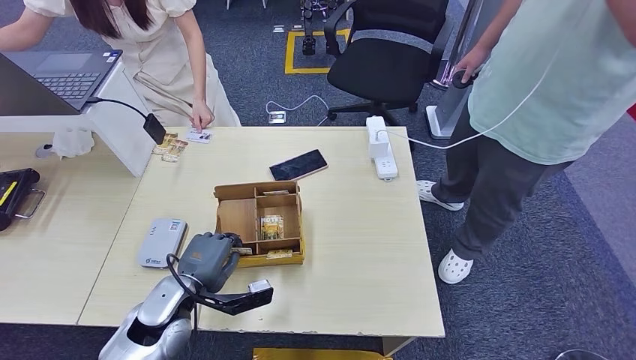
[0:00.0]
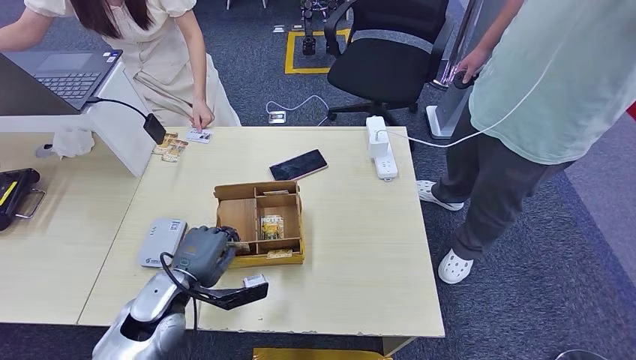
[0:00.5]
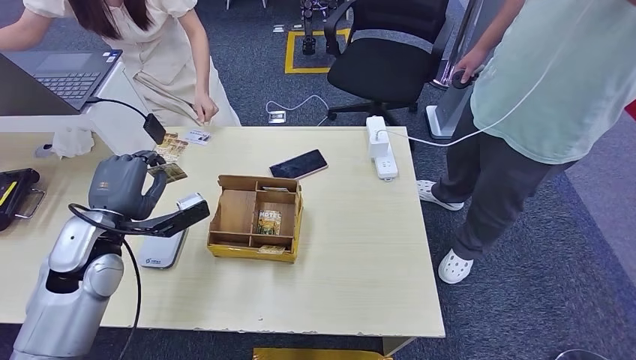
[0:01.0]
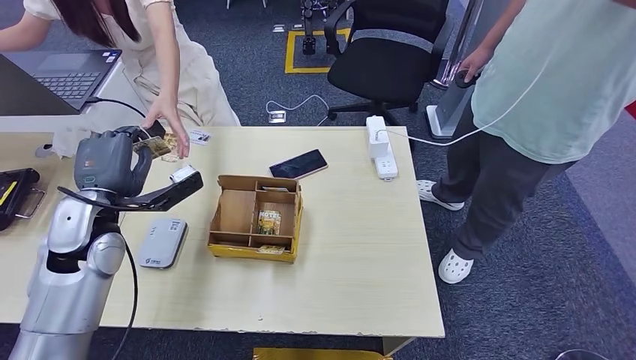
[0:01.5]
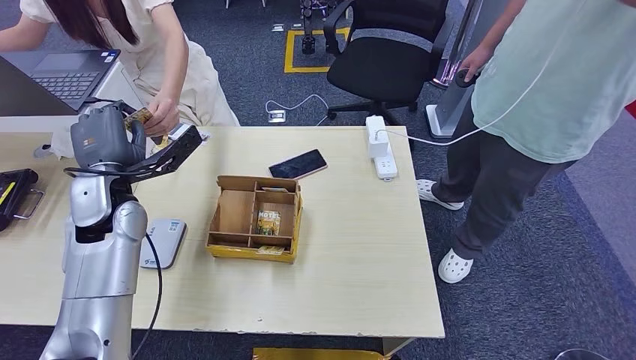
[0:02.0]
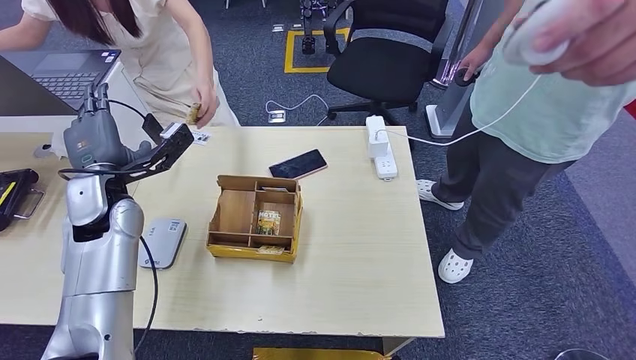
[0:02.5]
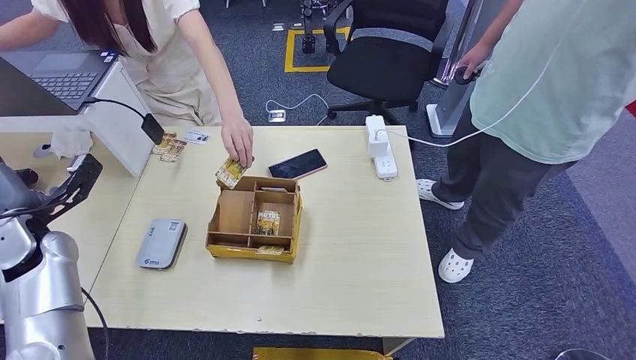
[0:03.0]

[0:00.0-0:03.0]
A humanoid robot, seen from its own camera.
Step, 0:01.0 to 0:03.0: Hand the room key to the person.
0:00.0 to 0:01.5: The left hand heads upward, to the left and forward, covering about 20 cm.
0:01.5 to 0:03.0: The left hand is displaced to the left by roughly 10 cm.
